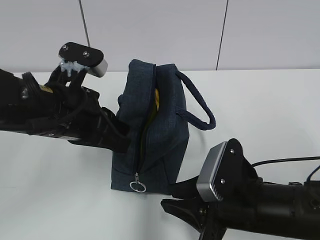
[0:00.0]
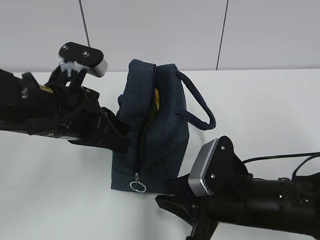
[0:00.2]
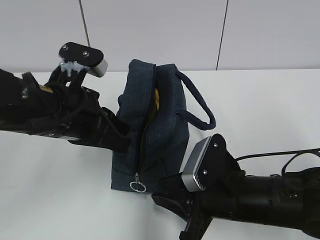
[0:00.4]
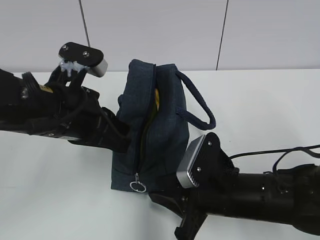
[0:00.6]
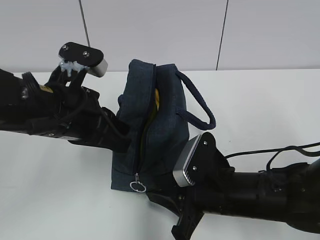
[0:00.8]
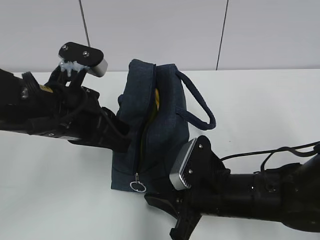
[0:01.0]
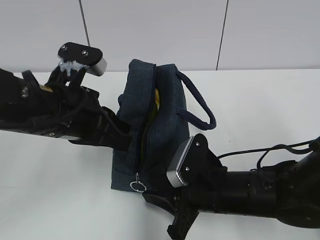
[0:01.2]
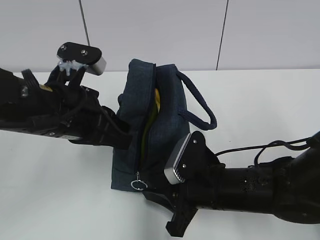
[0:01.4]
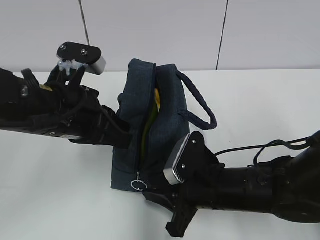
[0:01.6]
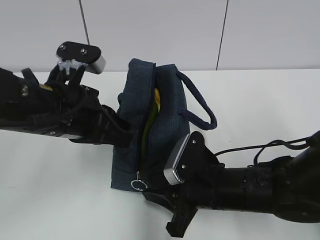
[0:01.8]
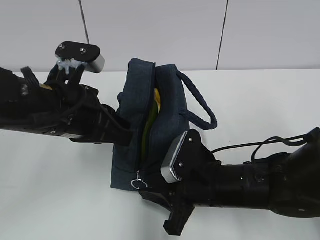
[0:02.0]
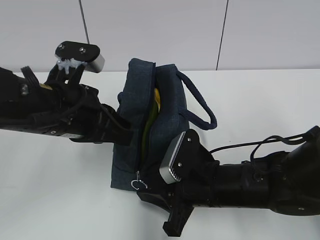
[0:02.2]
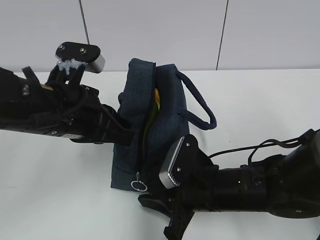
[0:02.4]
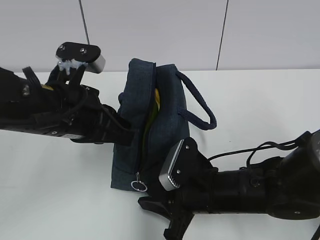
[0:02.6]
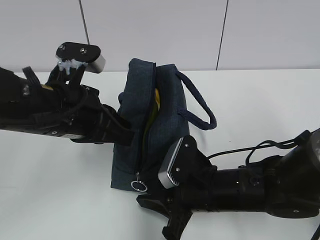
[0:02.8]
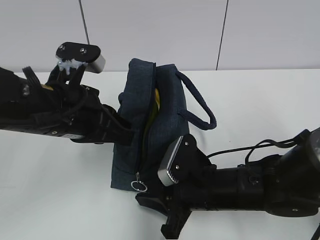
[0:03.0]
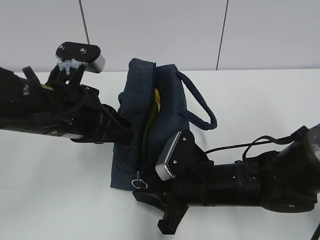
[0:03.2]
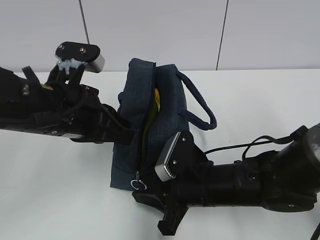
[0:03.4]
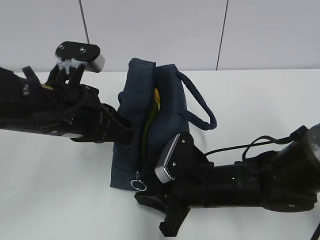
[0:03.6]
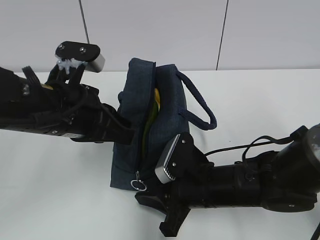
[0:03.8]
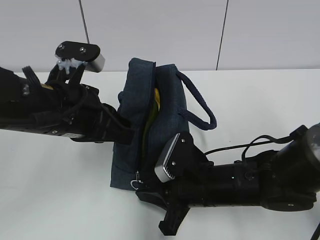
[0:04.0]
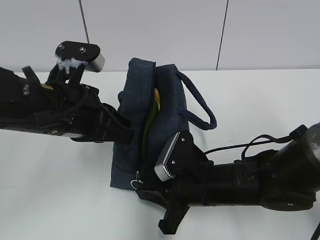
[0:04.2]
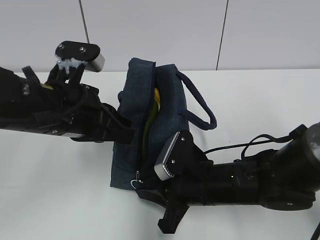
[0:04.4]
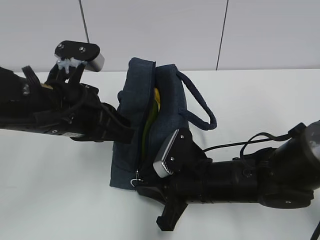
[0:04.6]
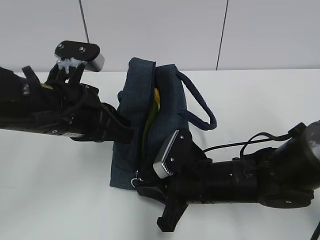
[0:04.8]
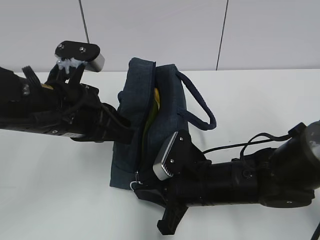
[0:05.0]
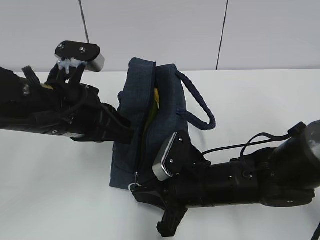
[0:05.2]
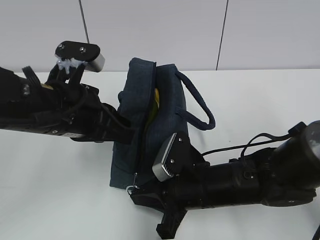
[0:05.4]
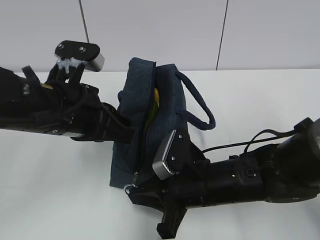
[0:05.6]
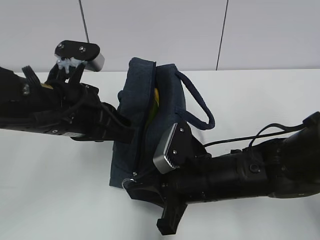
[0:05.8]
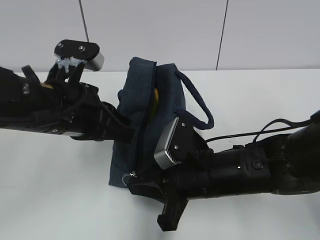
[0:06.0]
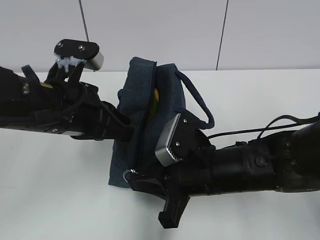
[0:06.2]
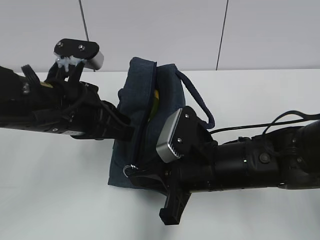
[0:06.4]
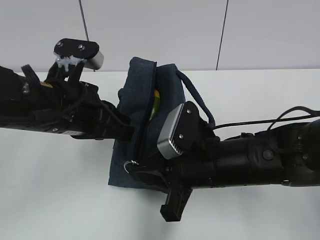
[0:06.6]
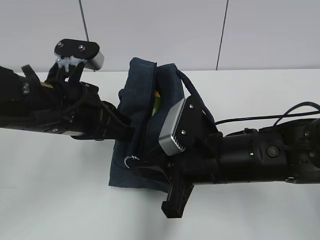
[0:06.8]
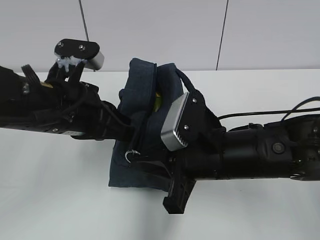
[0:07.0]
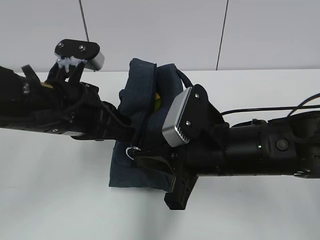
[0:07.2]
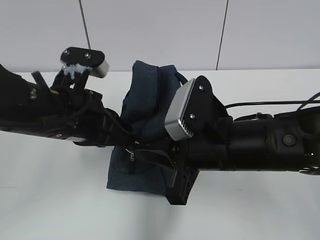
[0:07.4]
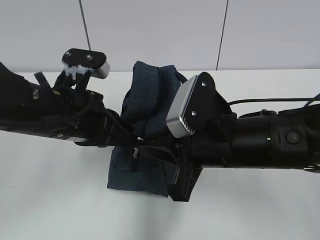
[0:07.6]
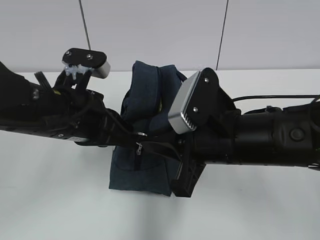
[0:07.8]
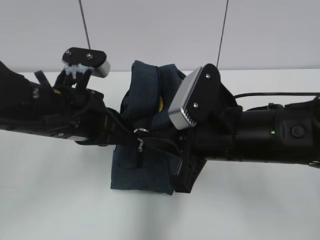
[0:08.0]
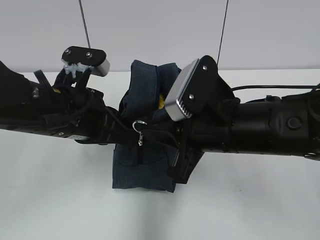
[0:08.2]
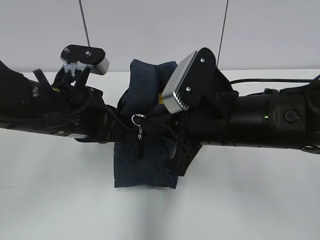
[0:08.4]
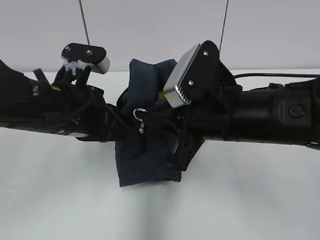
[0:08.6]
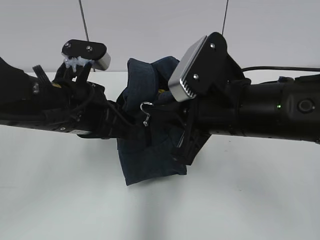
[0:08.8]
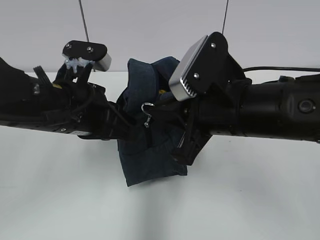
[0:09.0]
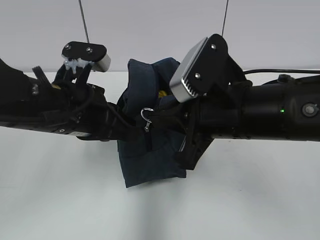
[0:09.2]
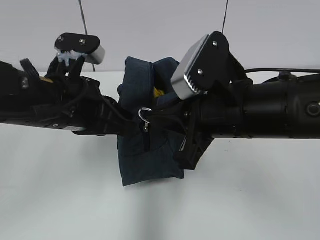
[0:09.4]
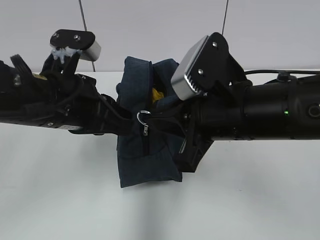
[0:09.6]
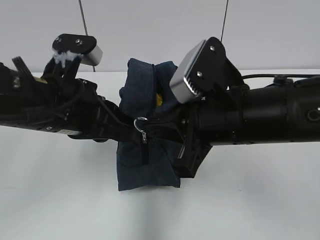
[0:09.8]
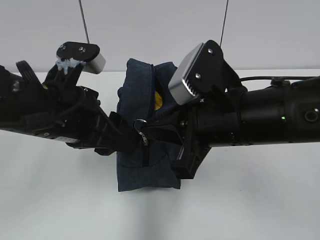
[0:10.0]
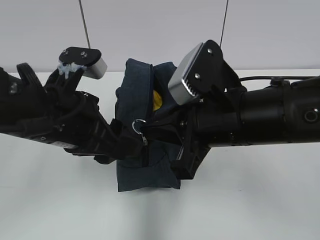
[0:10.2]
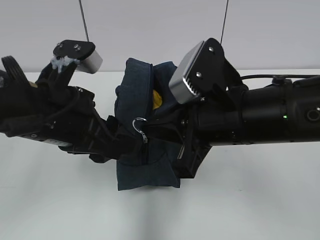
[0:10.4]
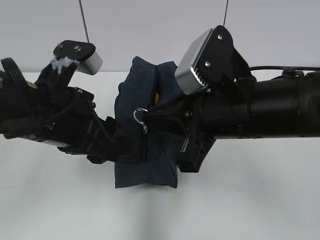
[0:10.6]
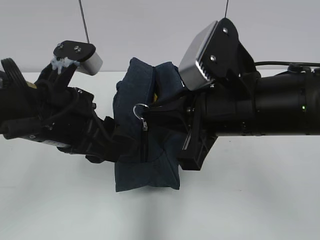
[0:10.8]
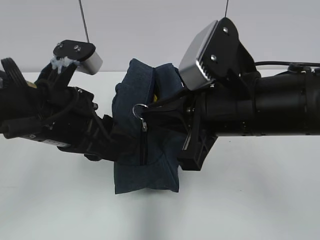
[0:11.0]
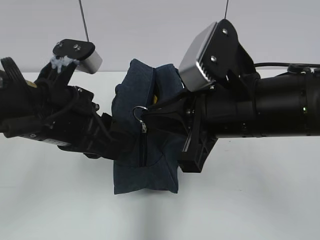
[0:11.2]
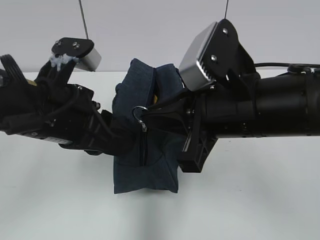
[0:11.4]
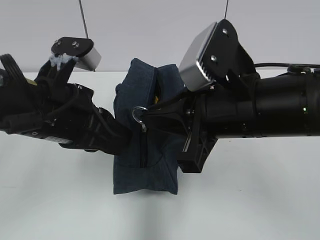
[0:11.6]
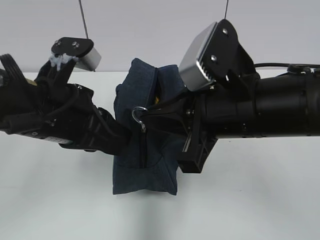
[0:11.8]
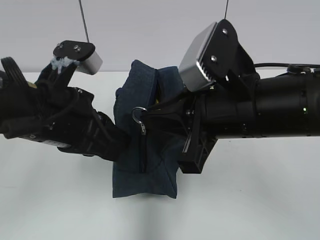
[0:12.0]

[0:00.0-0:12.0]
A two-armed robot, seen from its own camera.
0:00.0 to 0:01.6: The right gripper shifts by roughly 5 cm.
0:01.6 to 0:03.0: Both grippers stay about where they are.
0:03.0 to 0:04.4: Neither gripper changes place.
0:04.4 to 0:06.0: The grippers move only a little.
0:06.0 to 0:07.6: The right gripper goes approximately 5 cm upward.
0:09.0 to 0:10.4: The left gripper opens its fingers.
0:10.4 to 0:12.0: The left gripper closes its fingers.

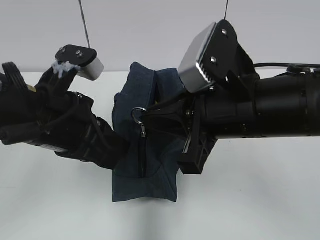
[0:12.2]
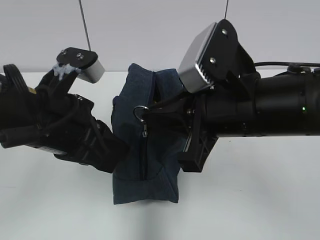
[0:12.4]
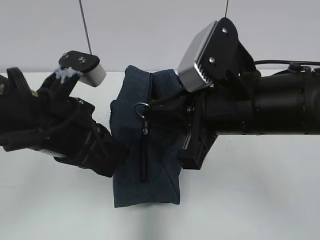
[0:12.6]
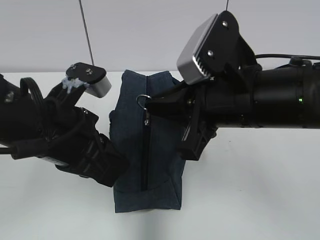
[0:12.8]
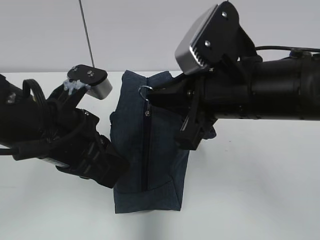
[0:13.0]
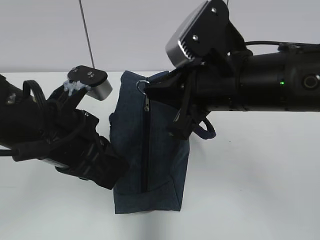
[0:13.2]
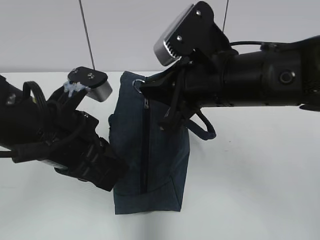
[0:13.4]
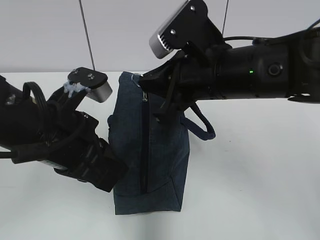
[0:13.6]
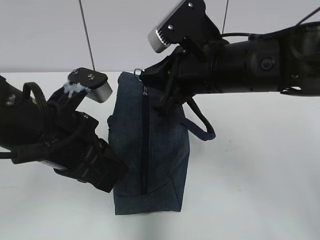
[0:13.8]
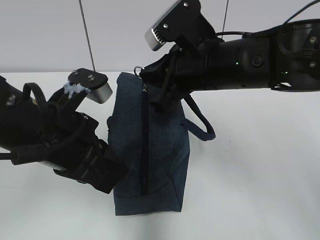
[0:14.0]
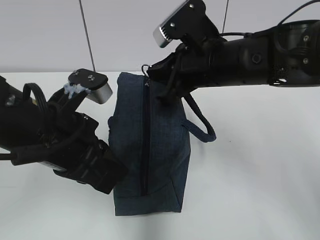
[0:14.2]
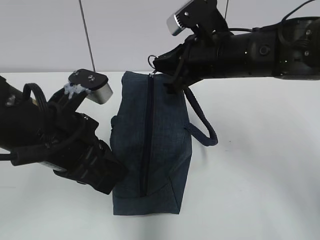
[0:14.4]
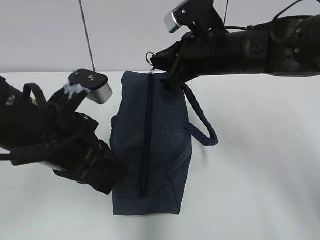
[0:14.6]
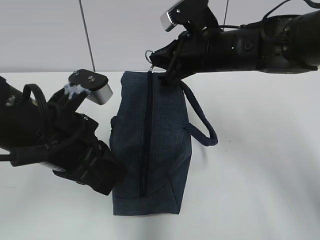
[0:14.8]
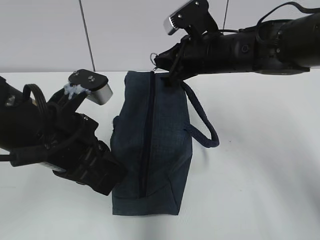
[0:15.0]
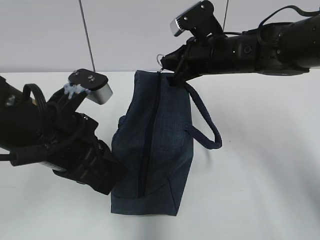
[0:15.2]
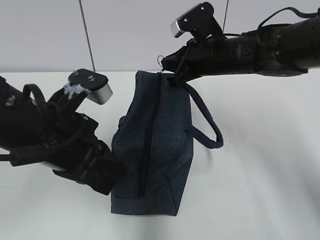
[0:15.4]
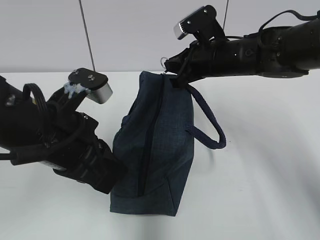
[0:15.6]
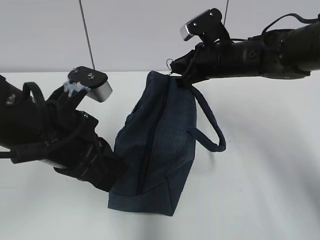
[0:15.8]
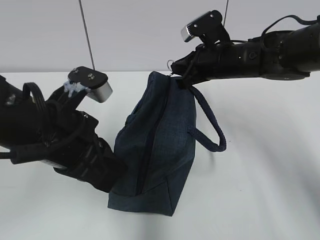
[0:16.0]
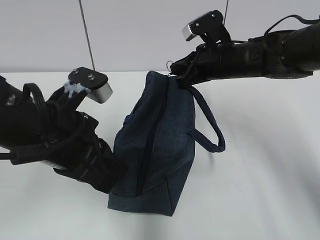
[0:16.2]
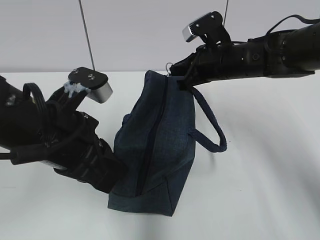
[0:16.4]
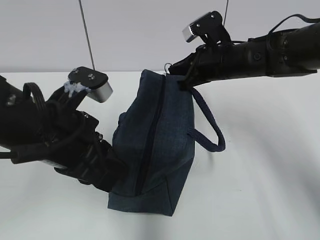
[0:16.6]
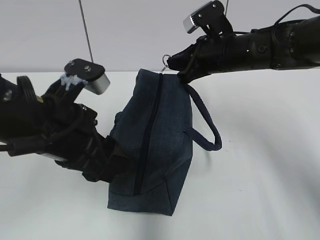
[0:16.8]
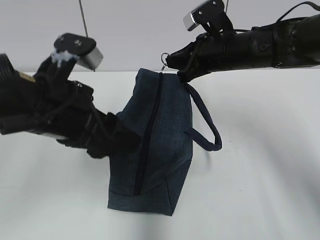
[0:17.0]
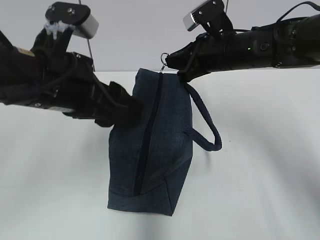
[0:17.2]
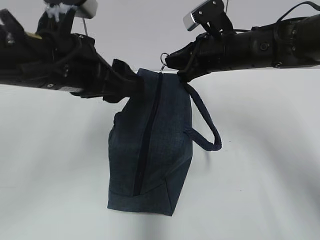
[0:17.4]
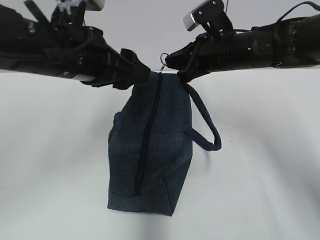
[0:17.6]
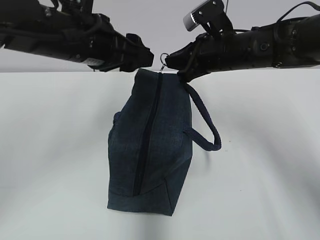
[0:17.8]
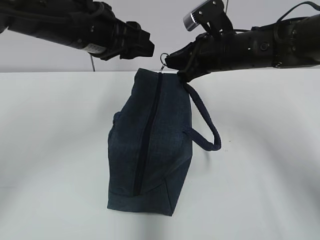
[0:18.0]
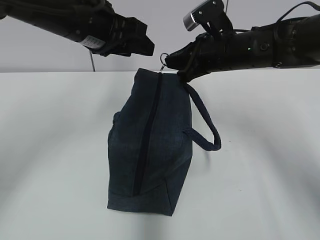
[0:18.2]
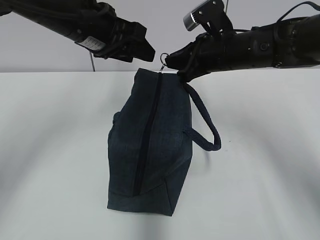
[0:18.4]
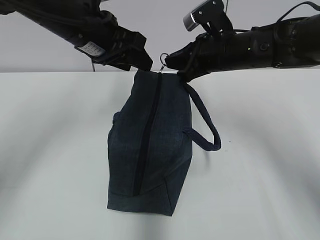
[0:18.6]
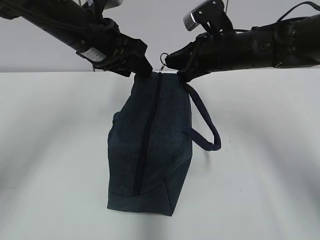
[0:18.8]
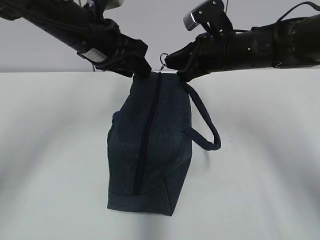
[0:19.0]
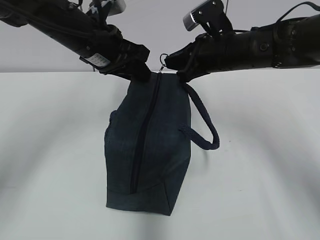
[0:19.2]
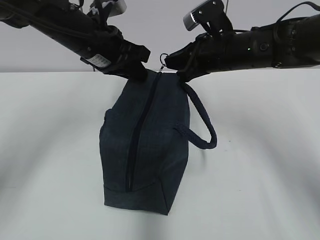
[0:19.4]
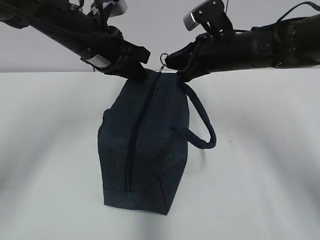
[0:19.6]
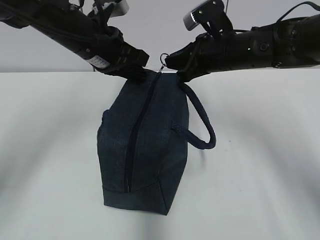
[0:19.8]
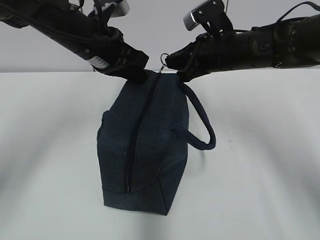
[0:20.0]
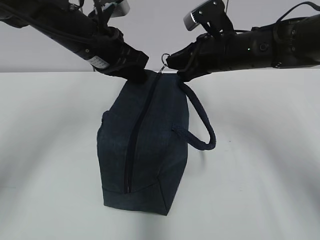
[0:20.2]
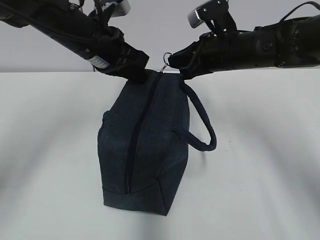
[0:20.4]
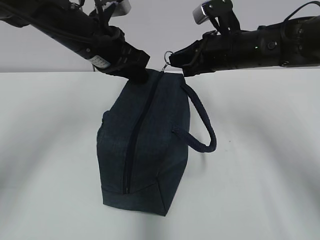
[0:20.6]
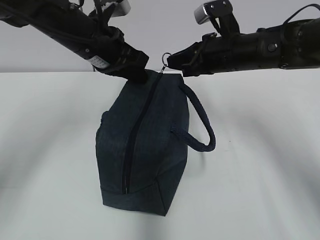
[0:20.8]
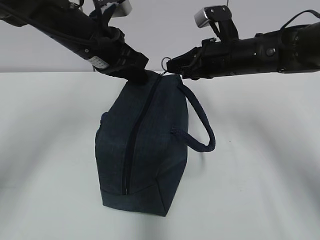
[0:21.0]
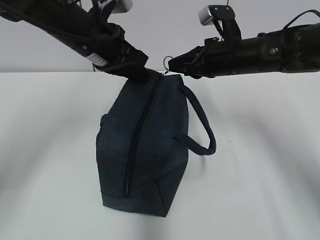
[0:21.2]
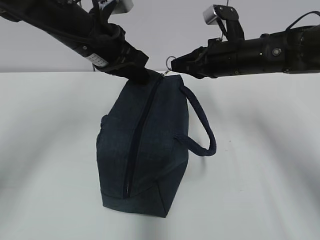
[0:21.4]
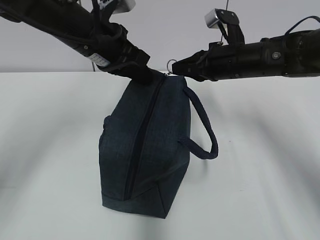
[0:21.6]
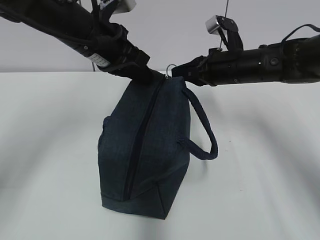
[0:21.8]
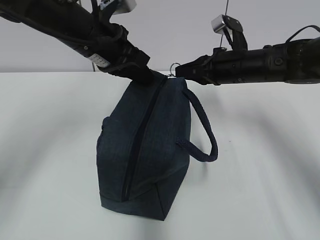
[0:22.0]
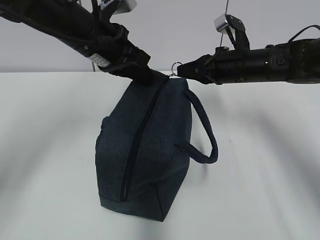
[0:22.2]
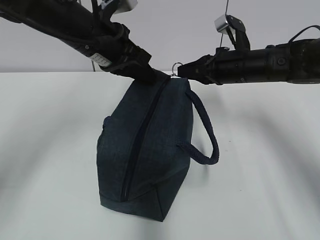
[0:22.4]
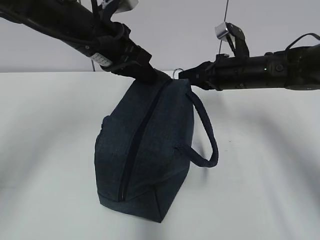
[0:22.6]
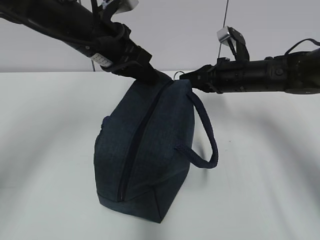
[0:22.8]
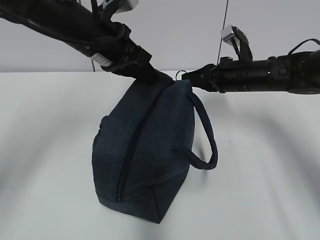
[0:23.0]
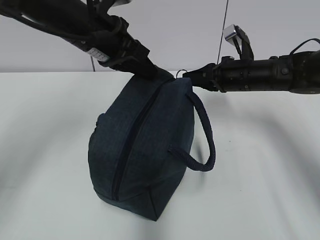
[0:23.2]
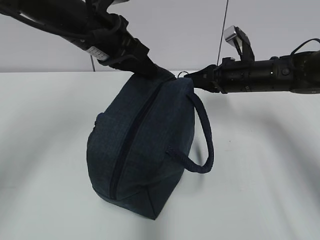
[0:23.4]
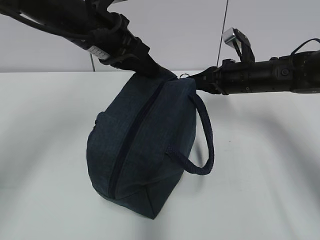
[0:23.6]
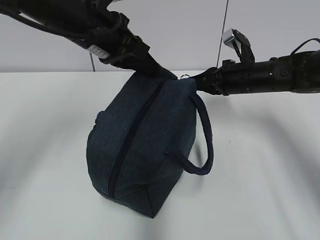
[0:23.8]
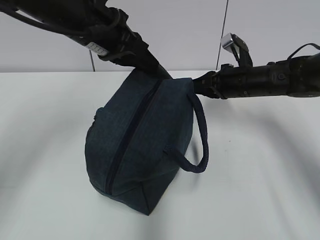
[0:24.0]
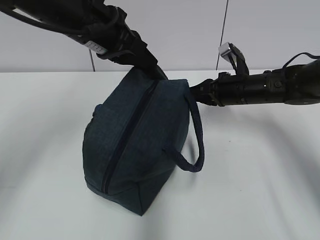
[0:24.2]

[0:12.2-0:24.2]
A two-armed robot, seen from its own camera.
0:12.2 to 0:13.8: The right gripper travels forward by roughly 5 cm.
0:13.8 to 0:15.2: The right gripper travels forward by about 10 cm.
0:15.2 to 0:16.6: The grippers make only small movements.
0:16.6 to 0:18.2: The left gripper is displaced forward and upward by about 15 cm, and opens.
0:18.2 to 0:19.8: The left gripper closes up.
0:19.8 to 0:21.2: The grippers make only small movements.
0:21.2 to 0:22.6: The right gripper ends up approximately 5 cm from where it was.
0:22.6 to 0:24.2: The grippers move only a little.
